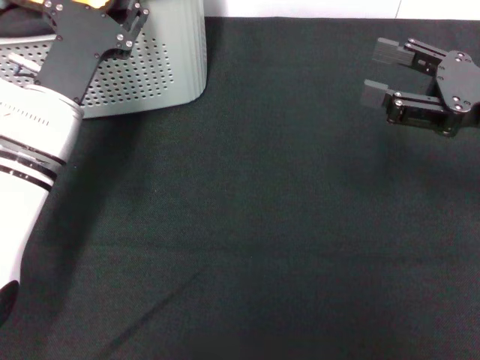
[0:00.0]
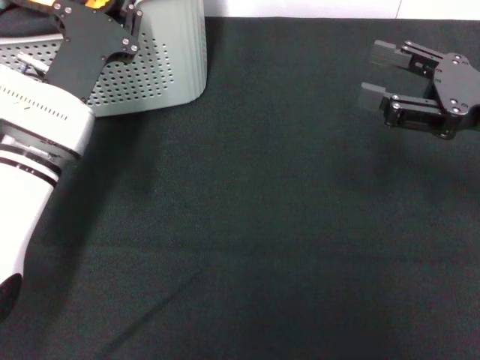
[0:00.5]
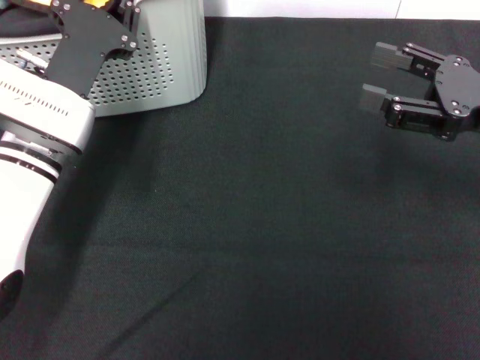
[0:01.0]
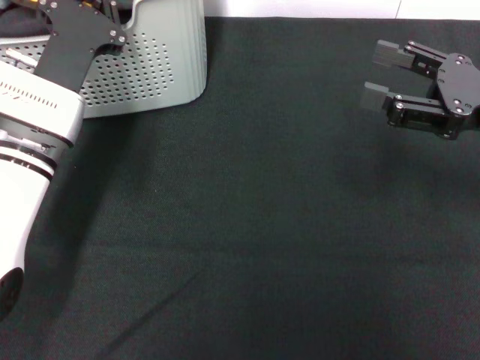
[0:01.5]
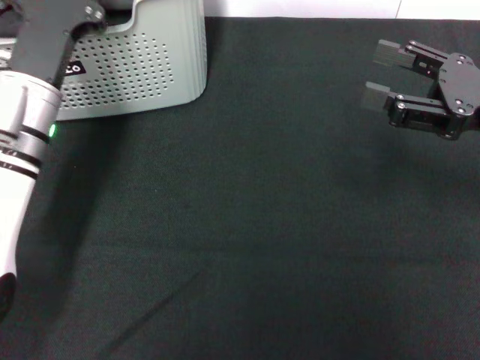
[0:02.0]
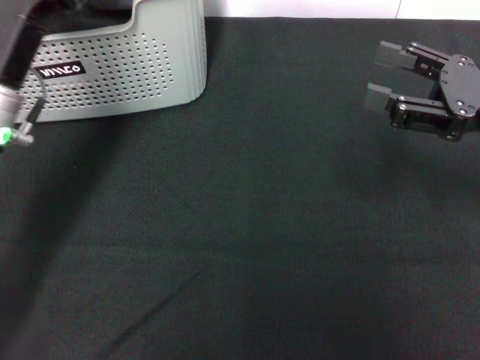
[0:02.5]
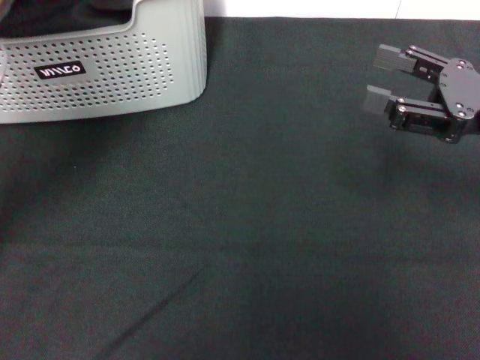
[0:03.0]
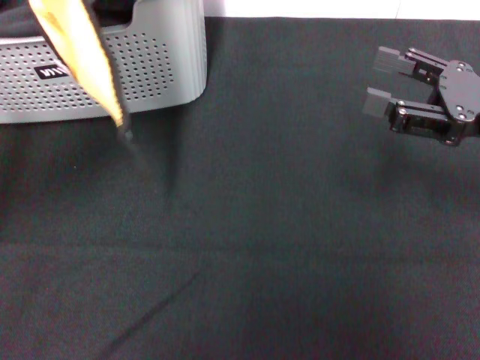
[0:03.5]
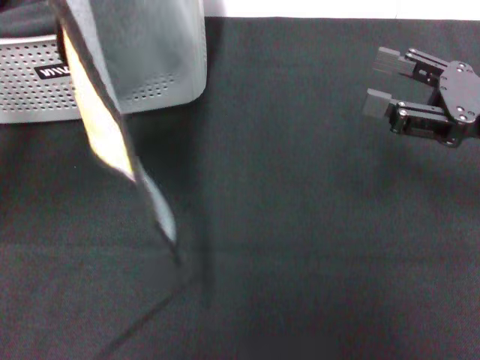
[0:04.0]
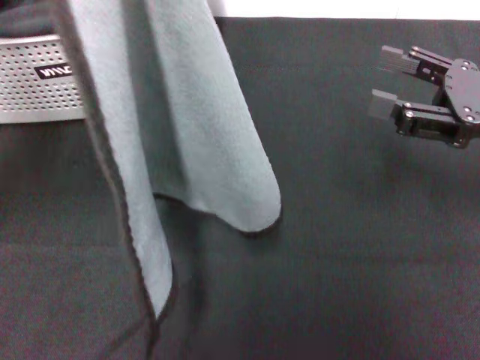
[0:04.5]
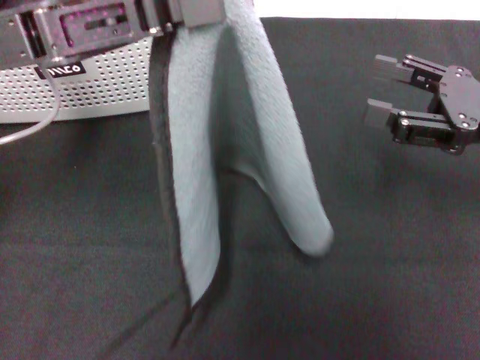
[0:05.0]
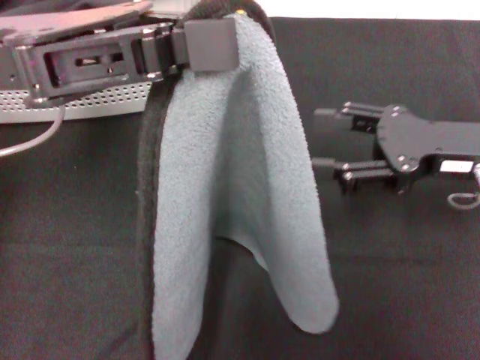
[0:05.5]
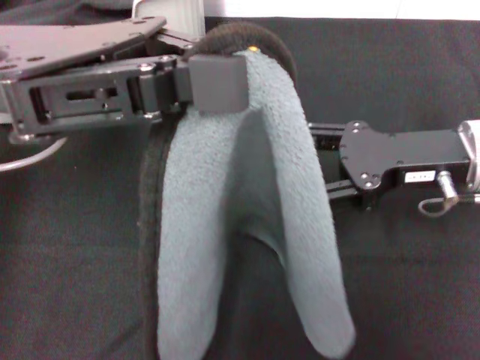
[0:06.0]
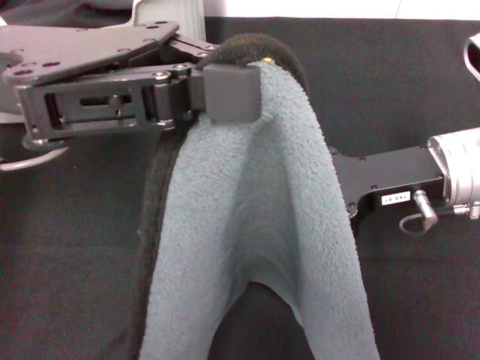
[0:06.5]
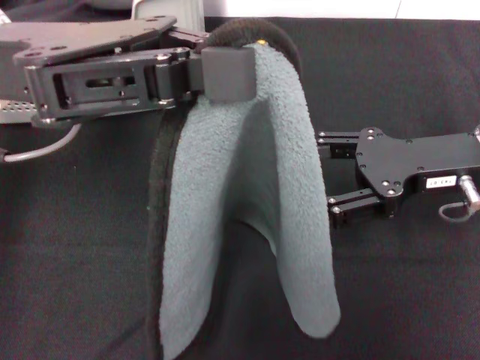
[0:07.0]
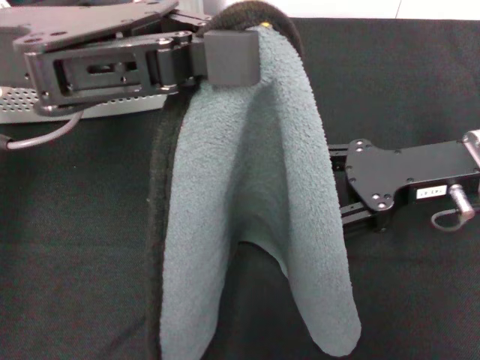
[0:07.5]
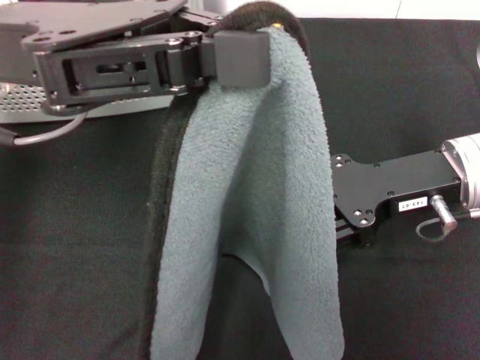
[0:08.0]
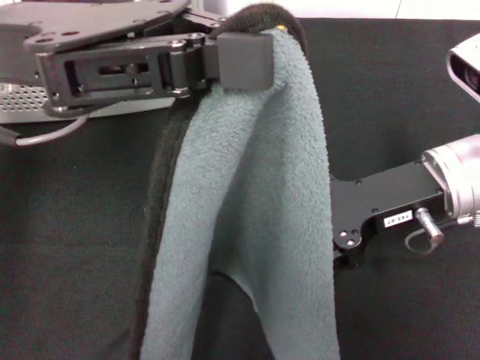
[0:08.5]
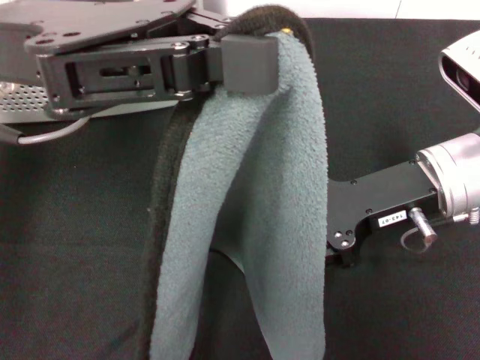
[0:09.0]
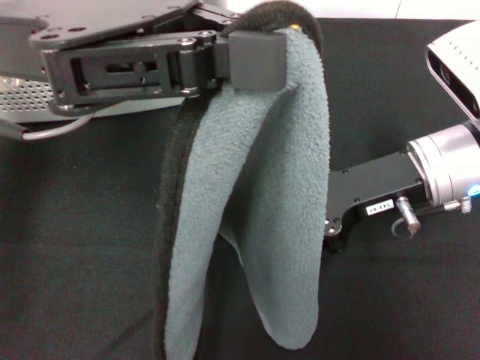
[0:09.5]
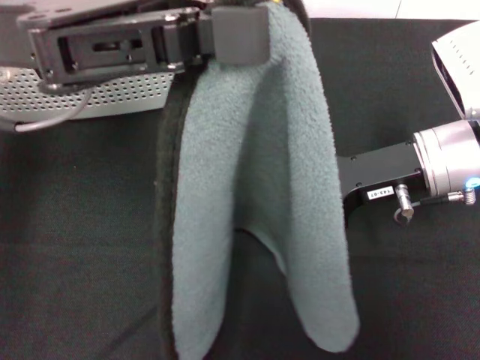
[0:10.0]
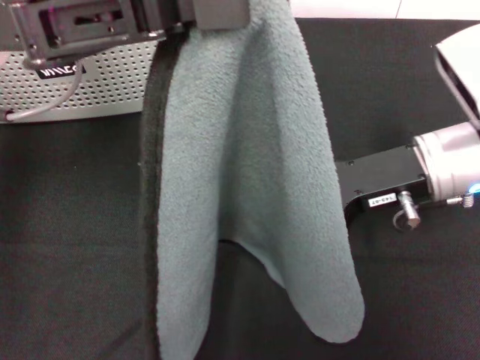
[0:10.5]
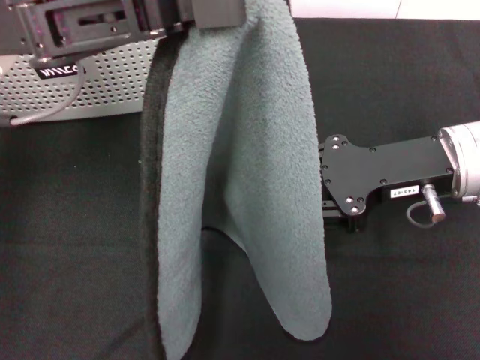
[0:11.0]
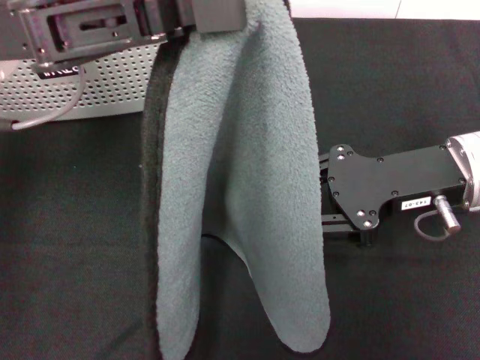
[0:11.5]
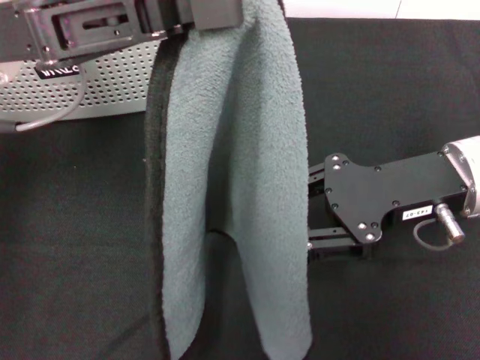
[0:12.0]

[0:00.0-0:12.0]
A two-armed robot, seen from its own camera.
Task of the whole recording: pick up the towel from the storage box and lay it flat on the black tablecloth.
0:00.0 to 0:02.0: The left gripper closes.
0:02.0 to 0:04.0: The left gripper goes approximately 15 cm upward and backward.
0:04.0 to 0:06.0: The left gripper is displaced to the right by about 5 cm. Meanwhile the right gripper moves to the left, some 5 cm.
0:08.0 to 0:10.0: The right gripper closes its fingers.

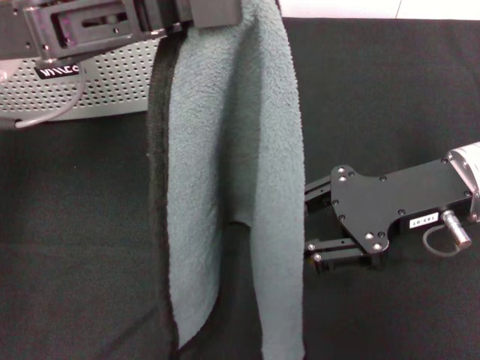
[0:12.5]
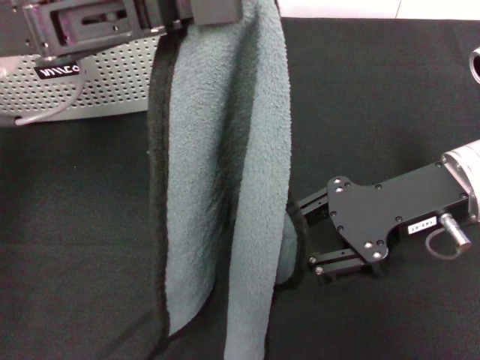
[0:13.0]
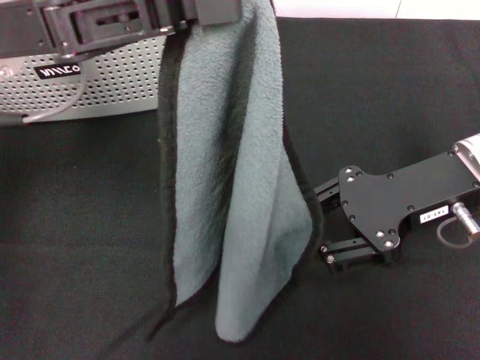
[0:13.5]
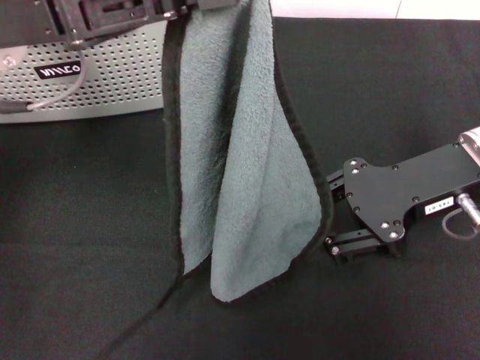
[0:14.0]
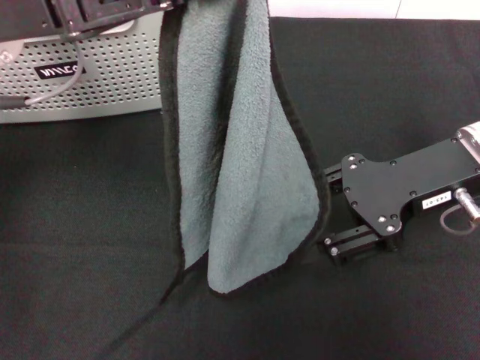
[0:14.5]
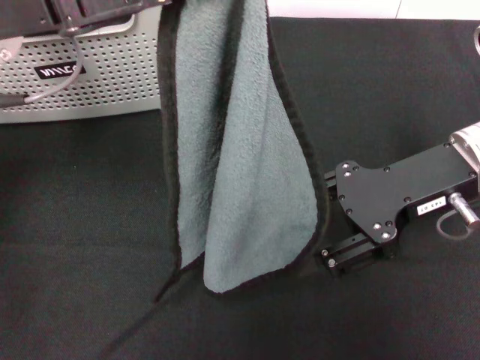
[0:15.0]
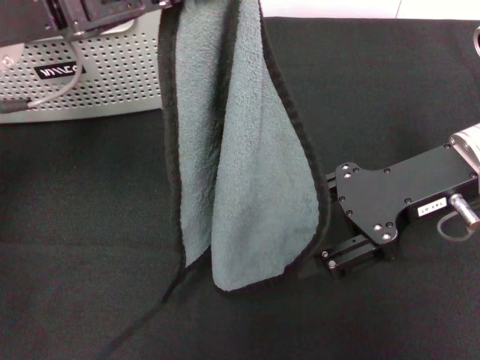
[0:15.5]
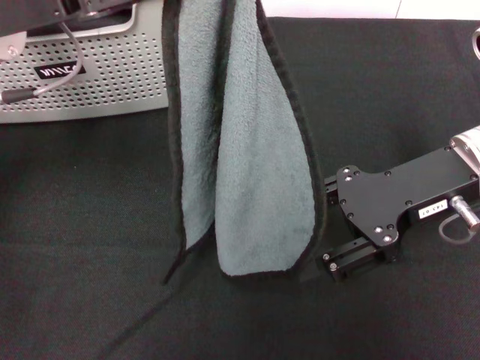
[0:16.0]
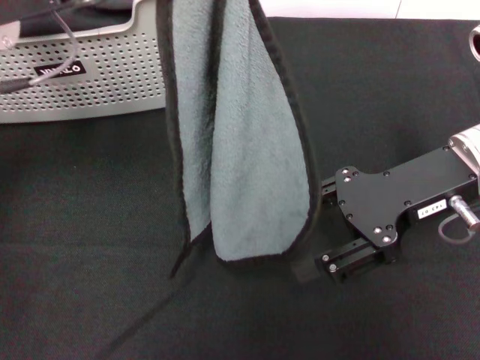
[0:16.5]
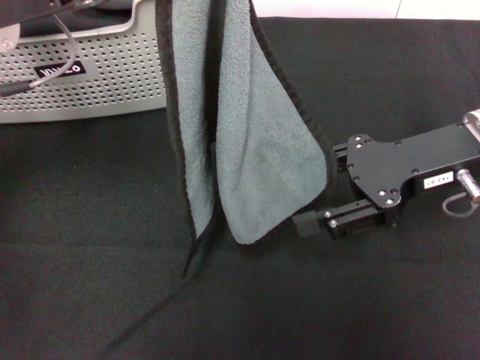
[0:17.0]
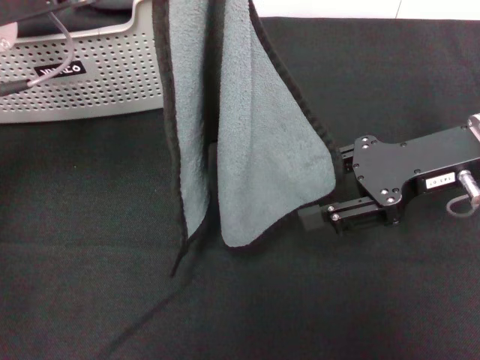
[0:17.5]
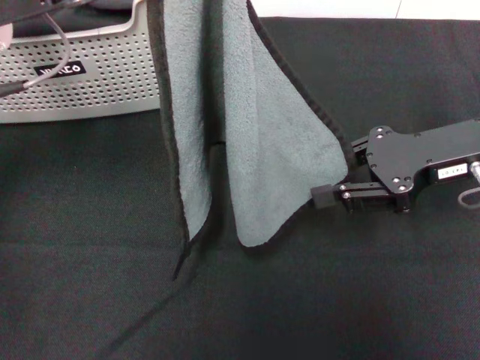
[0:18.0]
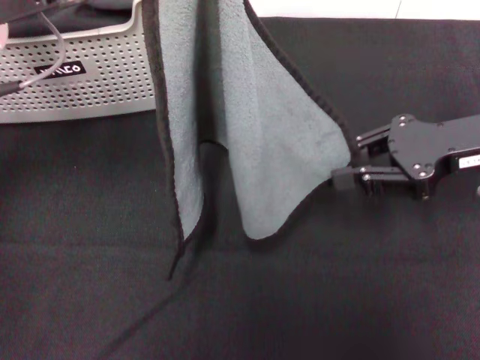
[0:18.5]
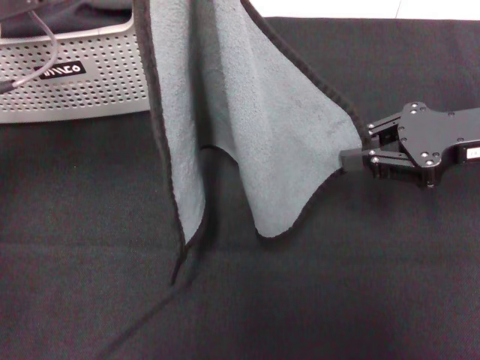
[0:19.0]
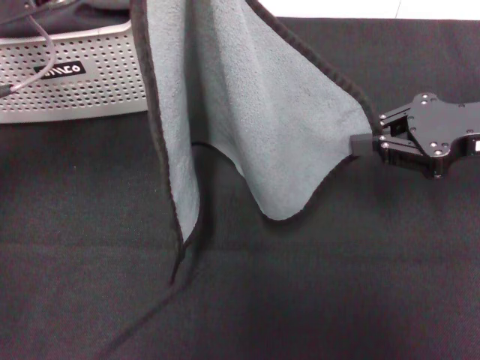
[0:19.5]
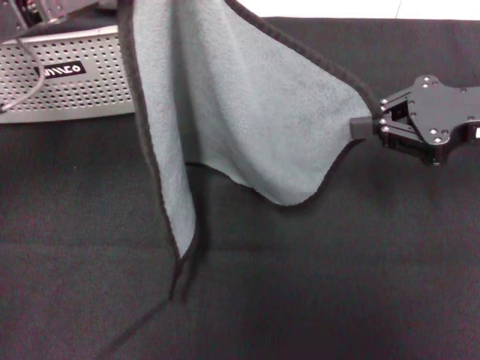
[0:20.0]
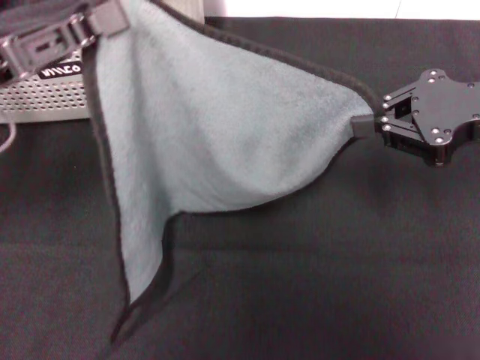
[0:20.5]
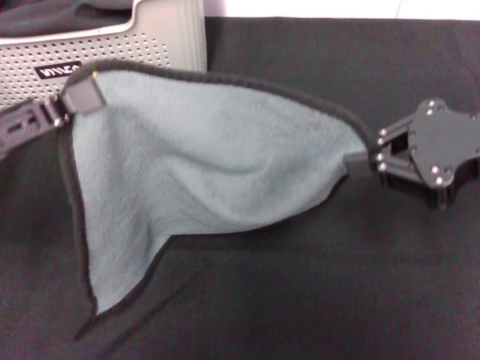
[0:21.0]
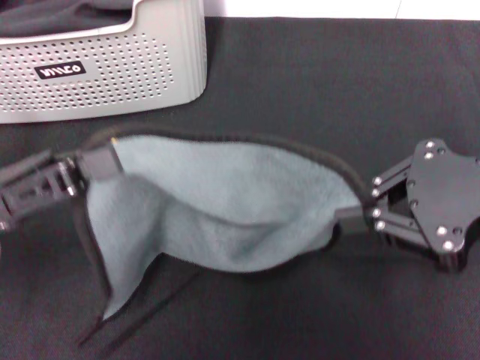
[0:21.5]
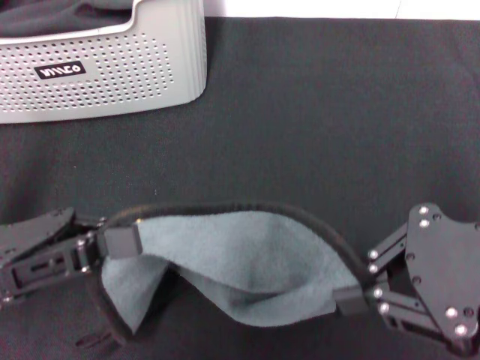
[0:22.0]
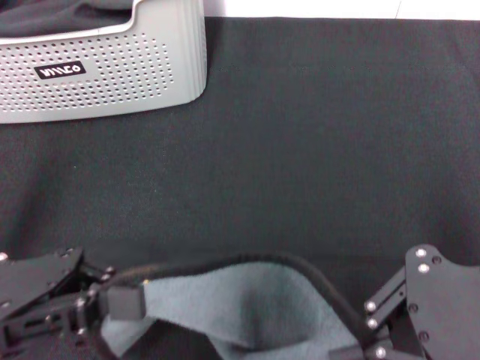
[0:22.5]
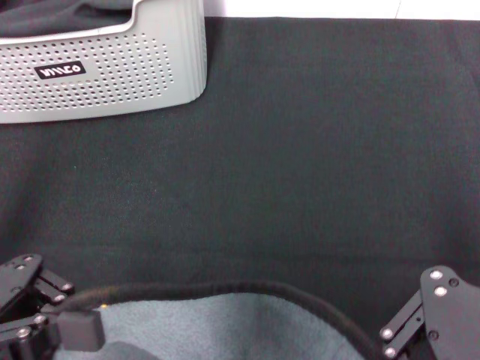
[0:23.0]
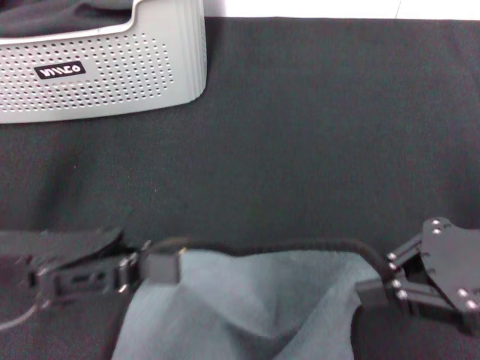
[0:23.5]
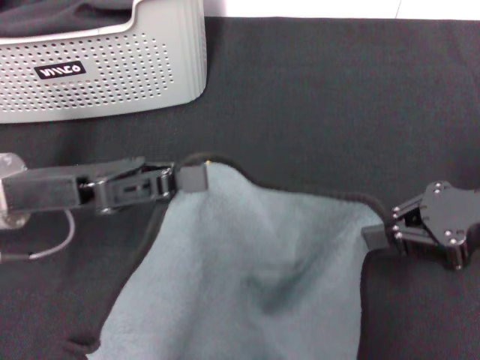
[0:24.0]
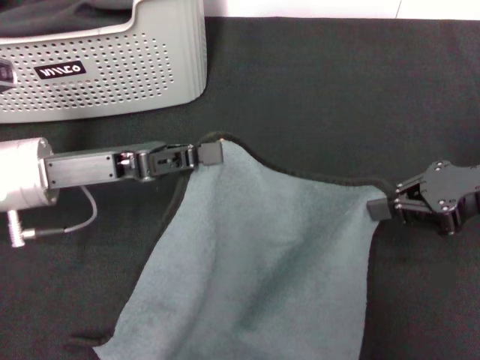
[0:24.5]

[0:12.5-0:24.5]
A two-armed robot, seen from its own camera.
Task of the whole recording: pick up the towel from the storage box and lay it flat on the black tablecloth.
Step, 0:12.5 to 0:19.0: Spread the towel flat with the left gripper.
0:14.5 to 0:16.5: The grippers stay close to where they were, moving slightly.
0:16.5 to 0:18.5: The right gripper goes roughly 5 cm to the right, and closes its fingers.
0:18.5 to 0:20.5: The left gripper travels downward by approximately 5 cm.
0:20.5 to 0:22.5: Both grippers travel together backward, approximately 10 cm.
0:22.5 to 0:24.5: The left gripper is displaced forward by about 10 cm. The right gripper is displaced forward, downward and to the right by about 15 cm.

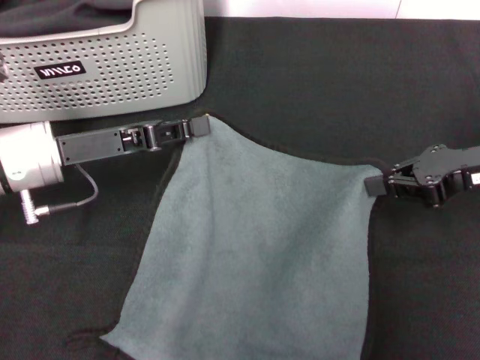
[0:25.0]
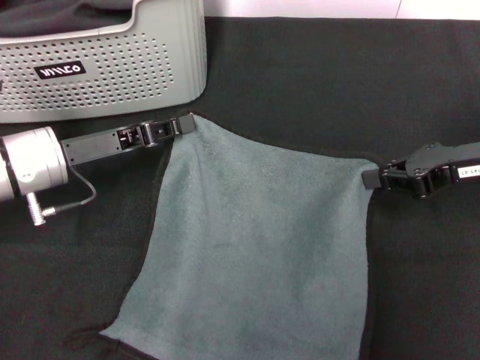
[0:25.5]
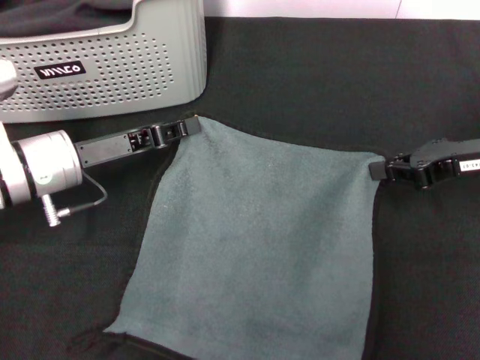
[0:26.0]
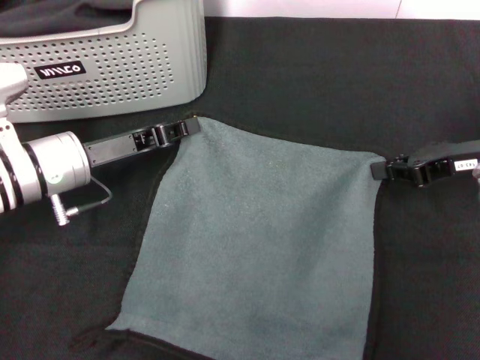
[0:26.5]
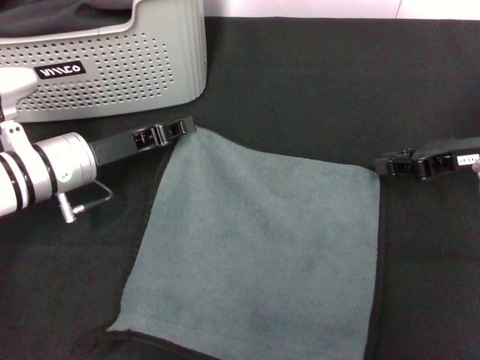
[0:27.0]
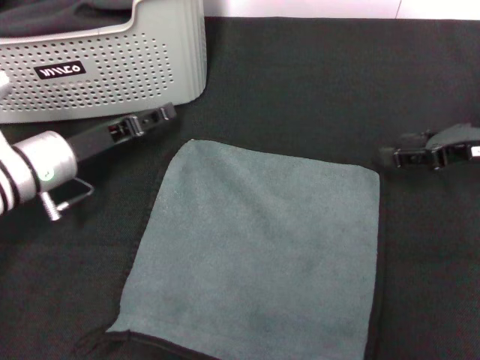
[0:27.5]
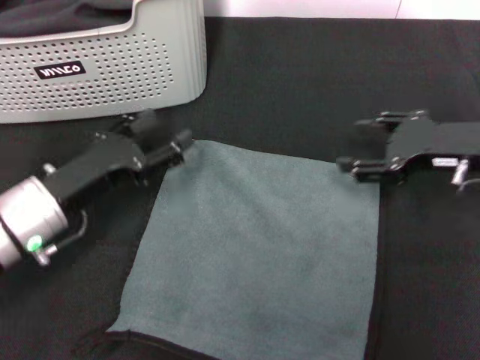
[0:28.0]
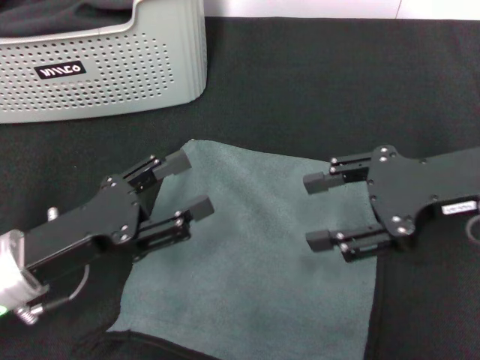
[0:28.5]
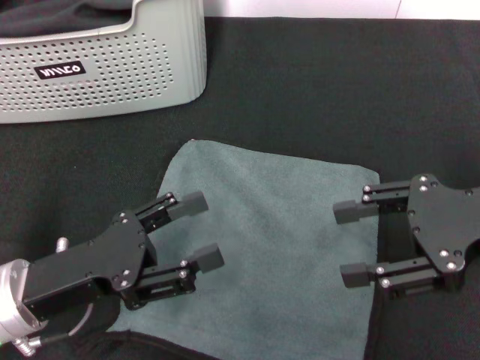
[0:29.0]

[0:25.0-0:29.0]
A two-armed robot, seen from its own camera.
Task of the whole recording: pick up the towel from the storage box and lay it flat on the black tablecloth.
Step, 0:25.0 to 0:27.0: Spread the towel flat with the right gripper.
0:25.0 to 0:27.0: The left gripper changes place by approximately 5 cm. Meanwhile the right gripper shifts by approximately 5 cm.
0:27.0 to 0:29.0: The right gripper goes some 10 cm backward and upward, and opens up. Meanwhile the left gripper is displaced backward by approximately 15 cm, and opens its fingers.
